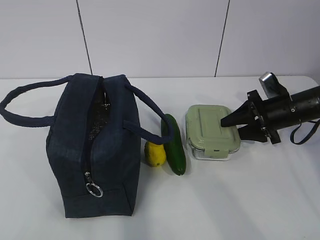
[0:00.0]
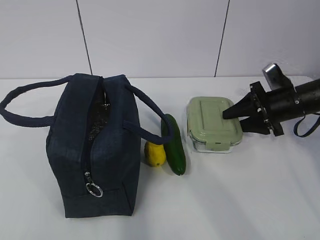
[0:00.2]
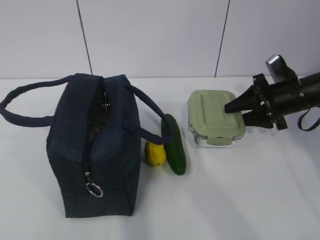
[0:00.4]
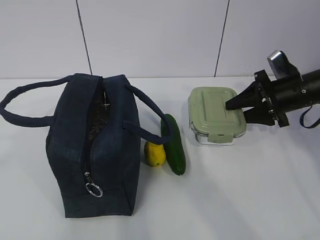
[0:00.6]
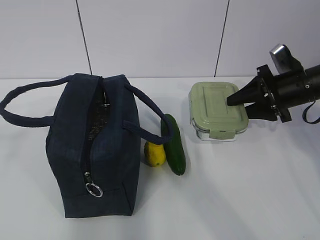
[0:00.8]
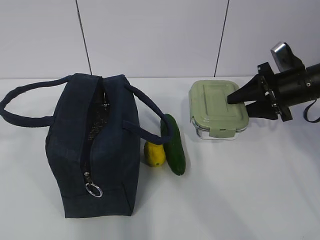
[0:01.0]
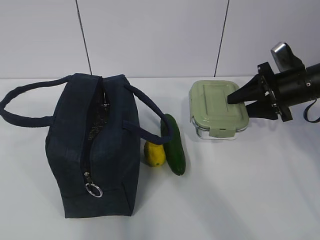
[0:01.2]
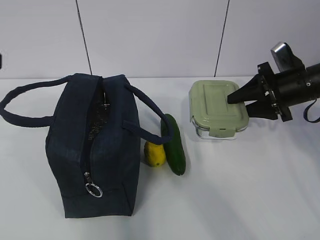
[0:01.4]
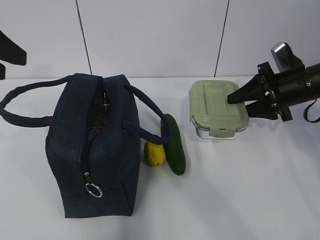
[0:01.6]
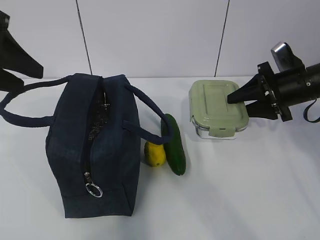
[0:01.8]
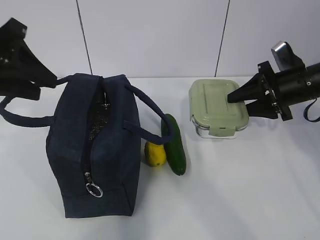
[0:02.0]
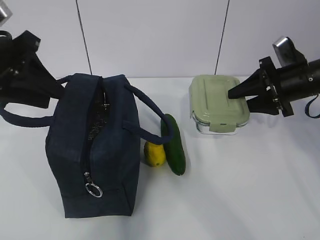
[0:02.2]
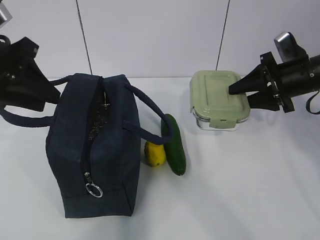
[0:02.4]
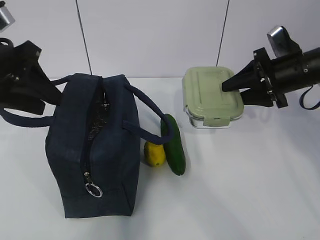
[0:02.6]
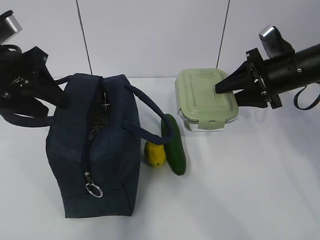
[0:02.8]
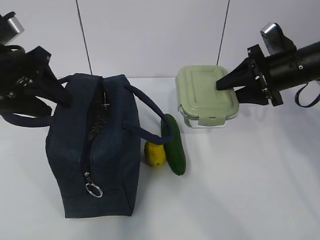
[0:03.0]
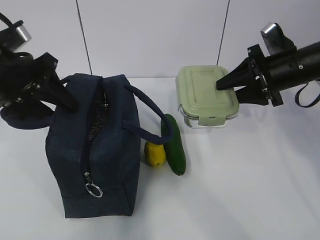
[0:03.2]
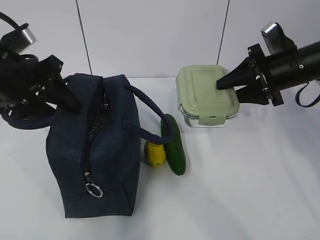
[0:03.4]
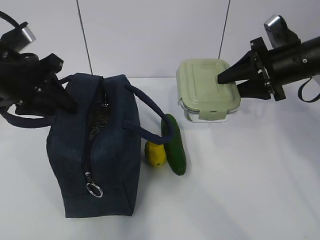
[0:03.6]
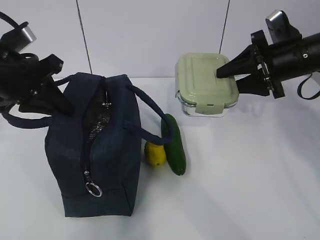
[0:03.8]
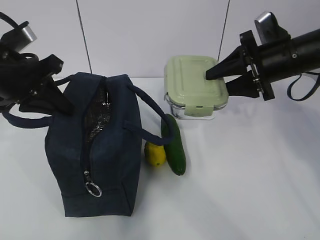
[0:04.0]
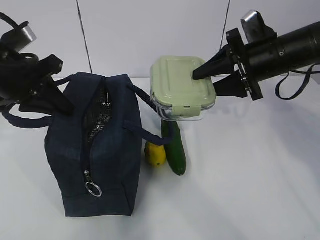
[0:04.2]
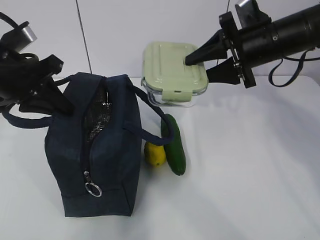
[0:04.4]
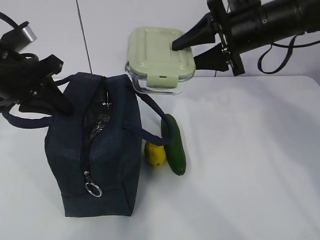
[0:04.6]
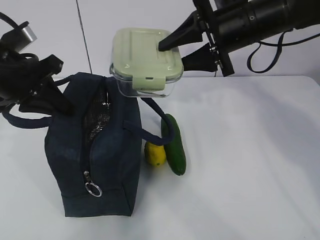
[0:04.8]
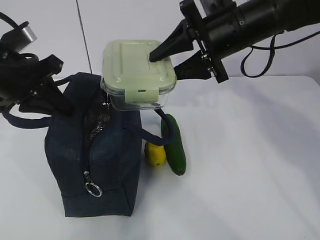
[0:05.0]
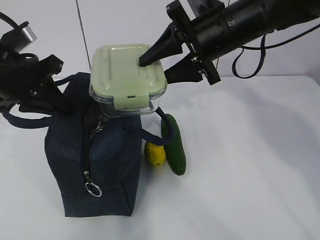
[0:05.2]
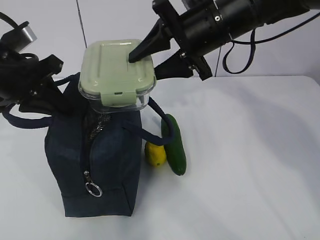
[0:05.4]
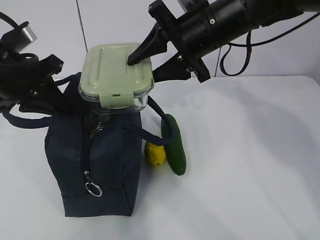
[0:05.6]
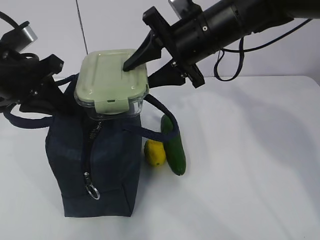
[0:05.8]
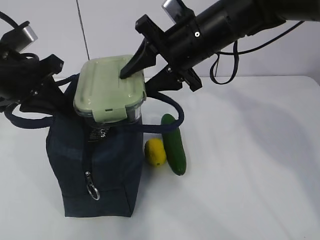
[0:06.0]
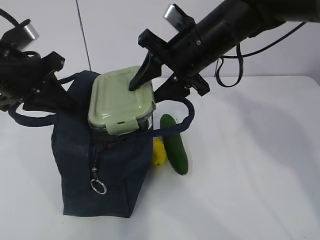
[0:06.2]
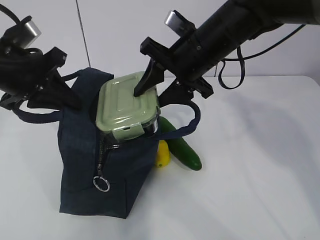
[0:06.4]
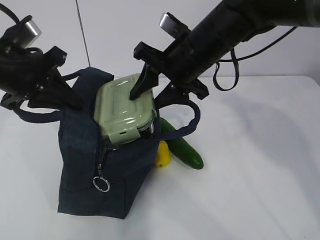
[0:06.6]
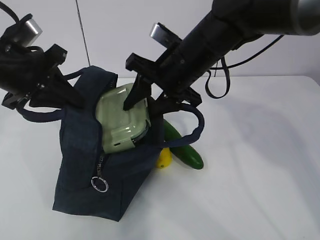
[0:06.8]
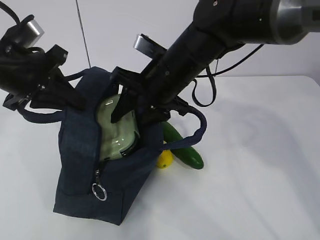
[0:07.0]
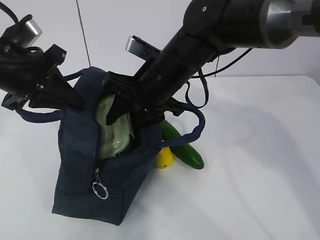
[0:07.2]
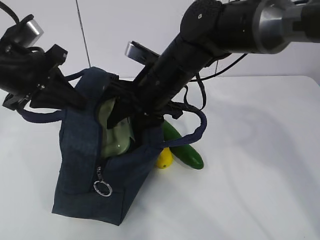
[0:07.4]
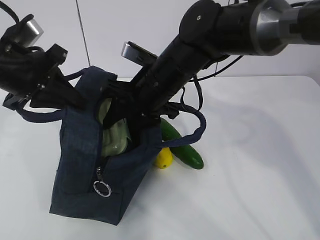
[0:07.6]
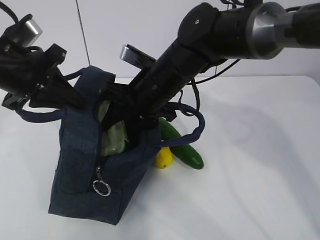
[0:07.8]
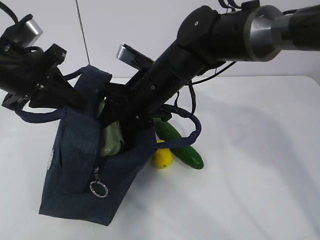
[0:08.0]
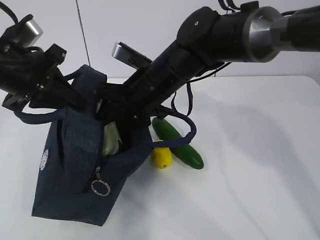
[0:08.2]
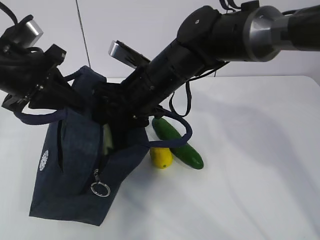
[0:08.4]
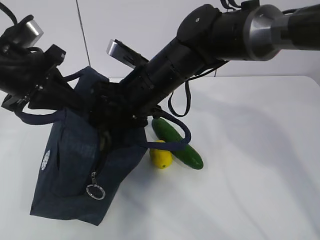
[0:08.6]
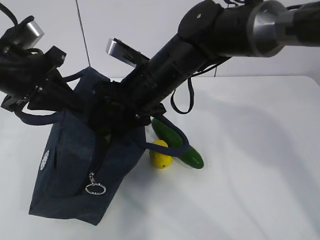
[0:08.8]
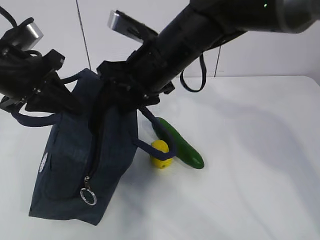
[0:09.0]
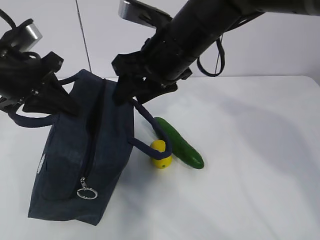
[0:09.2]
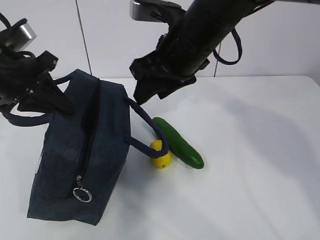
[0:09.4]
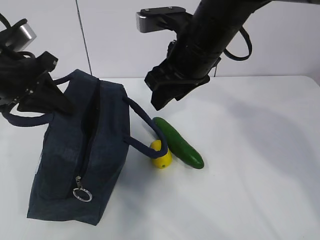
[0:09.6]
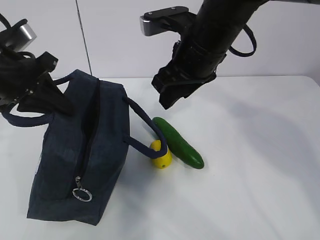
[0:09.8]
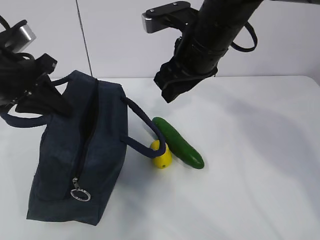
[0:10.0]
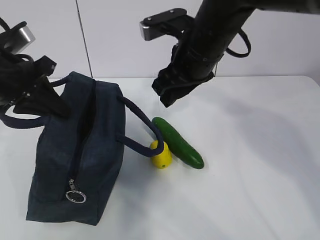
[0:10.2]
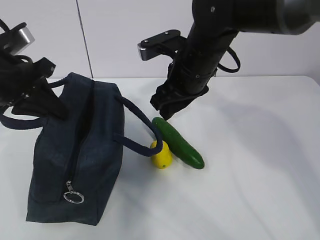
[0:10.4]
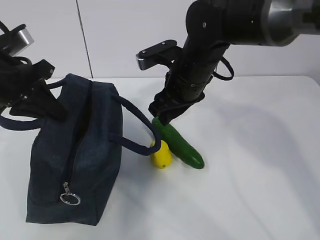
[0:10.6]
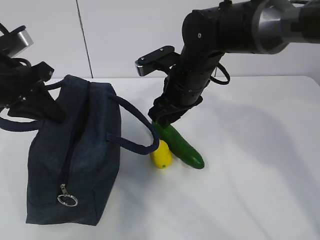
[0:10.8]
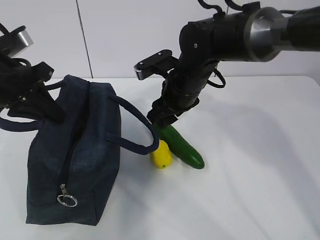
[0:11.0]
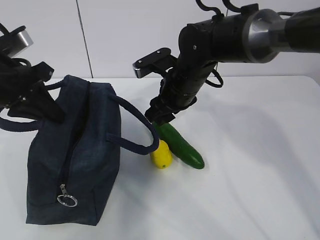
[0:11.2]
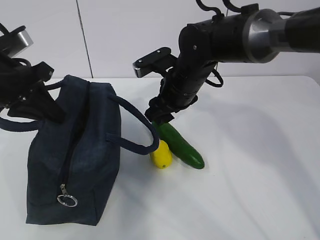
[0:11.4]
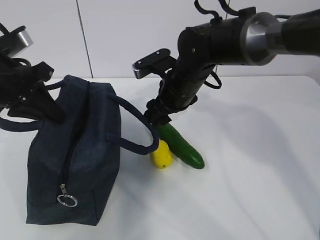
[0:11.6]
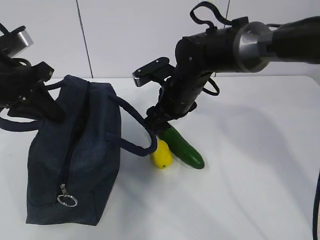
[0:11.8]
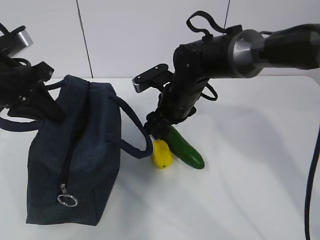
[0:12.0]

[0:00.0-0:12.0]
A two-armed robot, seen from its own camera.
Step, 0:01.8 to 0:04.0: Place it into the bag with your right hand.
Step, 0:04.2 to 0:08.6: Grab the cucumber with your right hand.
0:00.0 to 0:01.6: The right gripper moves upward, roughly 5 cm; the left gripper goes some 25 cm forward.
0:01.6 to 0:03.0: The left gripper goes about 5 cm downward.
0:03.0 to 0:04.4: The right gripper moves to the left and upward, roughly 10 cm. The left gripper closes up.
0:04.4 to 0:06.0: The right gripper goes approximately 10 cm to the left.
0:06.0 to 0:07.6: The right gripper shifts approximately 10 cm downward and to the left.
0:09.0 to 0:10.4: The right gripper moves about 5 cm.
0:10.4 to 0:12.0: The right gripper goes some 10 cm downward.

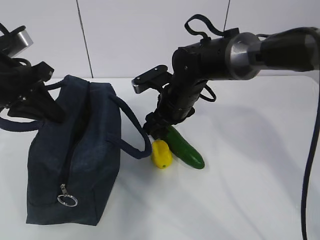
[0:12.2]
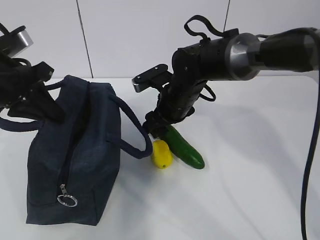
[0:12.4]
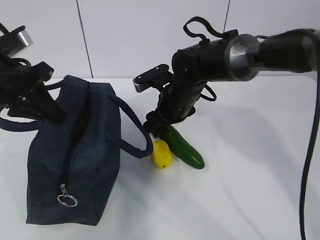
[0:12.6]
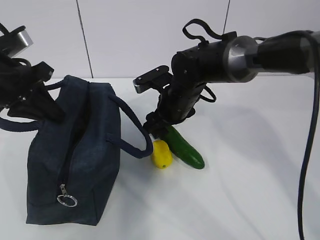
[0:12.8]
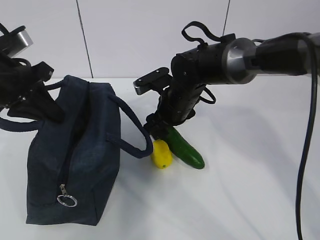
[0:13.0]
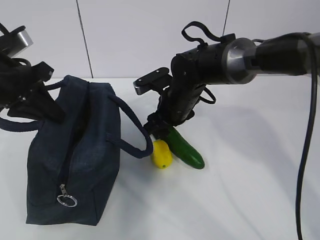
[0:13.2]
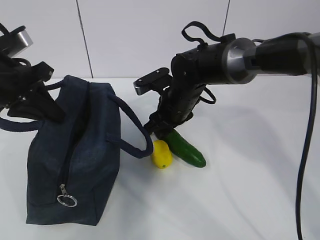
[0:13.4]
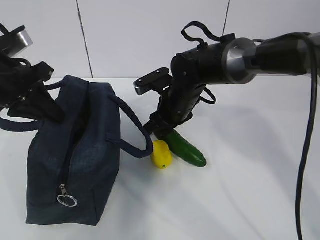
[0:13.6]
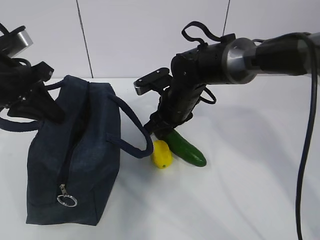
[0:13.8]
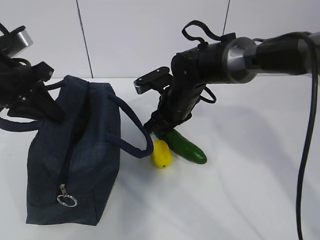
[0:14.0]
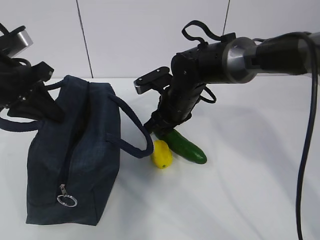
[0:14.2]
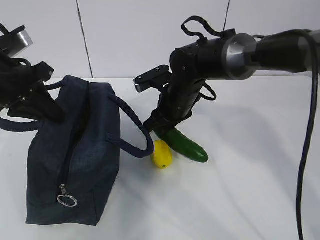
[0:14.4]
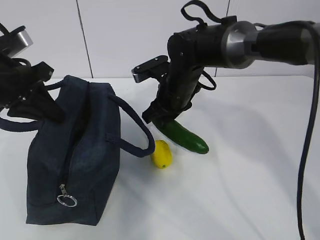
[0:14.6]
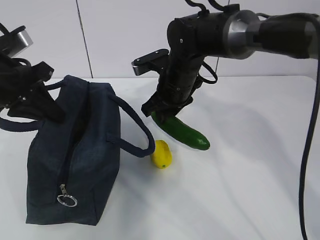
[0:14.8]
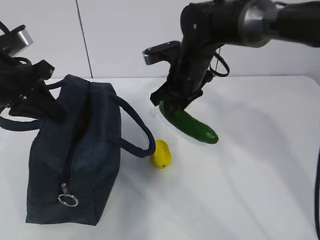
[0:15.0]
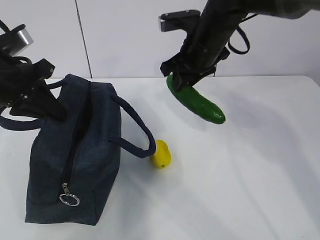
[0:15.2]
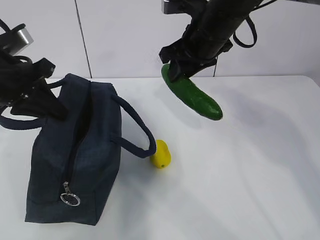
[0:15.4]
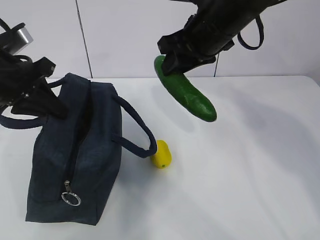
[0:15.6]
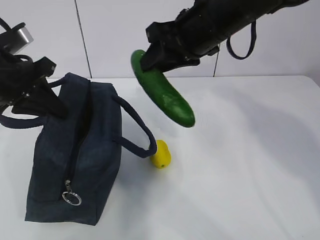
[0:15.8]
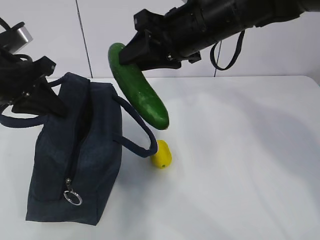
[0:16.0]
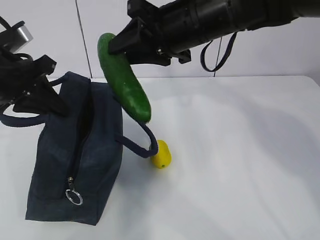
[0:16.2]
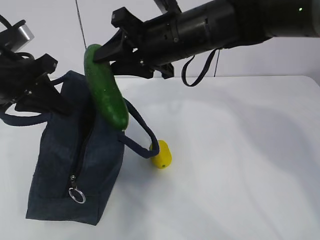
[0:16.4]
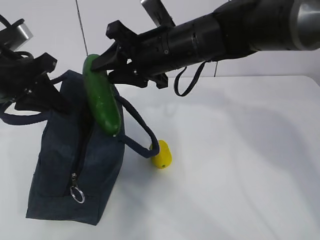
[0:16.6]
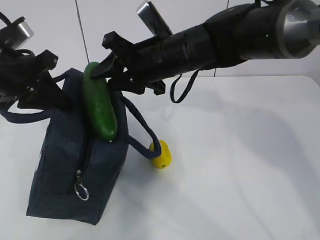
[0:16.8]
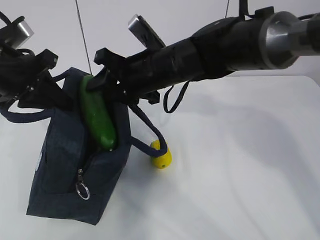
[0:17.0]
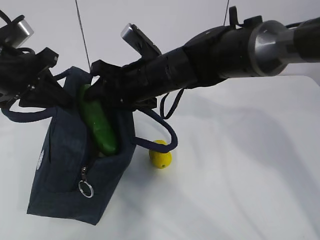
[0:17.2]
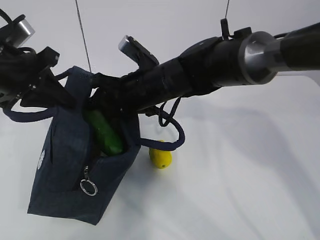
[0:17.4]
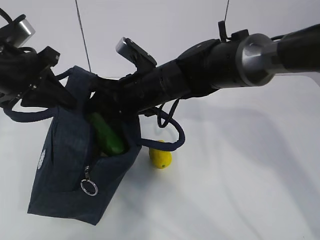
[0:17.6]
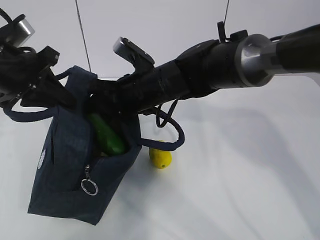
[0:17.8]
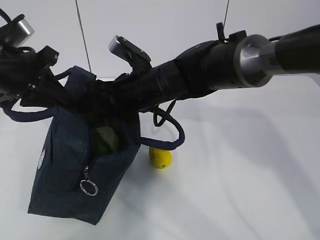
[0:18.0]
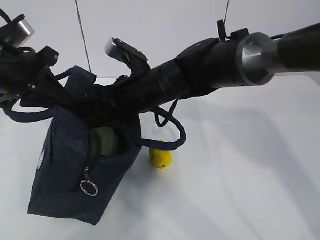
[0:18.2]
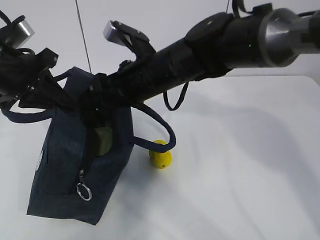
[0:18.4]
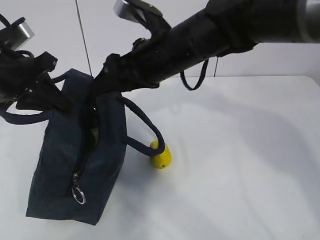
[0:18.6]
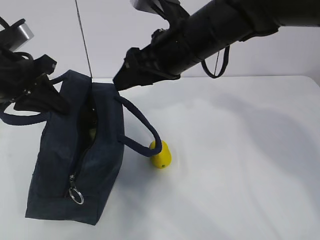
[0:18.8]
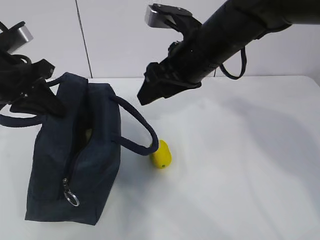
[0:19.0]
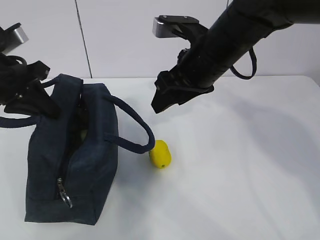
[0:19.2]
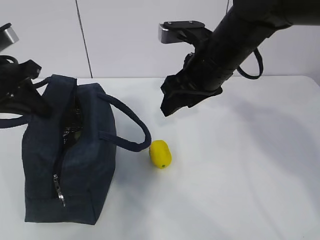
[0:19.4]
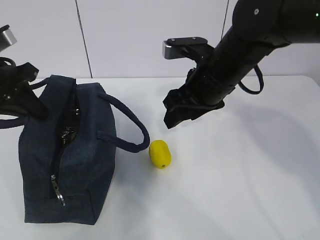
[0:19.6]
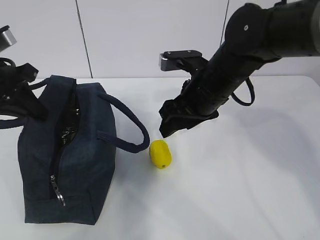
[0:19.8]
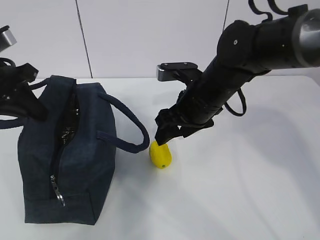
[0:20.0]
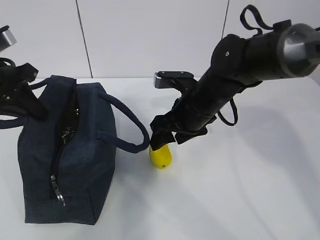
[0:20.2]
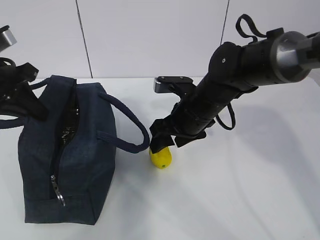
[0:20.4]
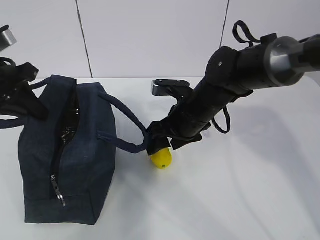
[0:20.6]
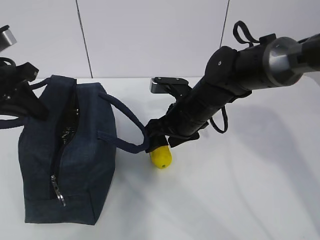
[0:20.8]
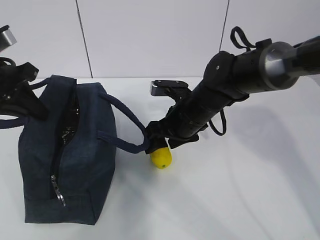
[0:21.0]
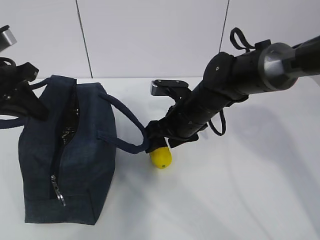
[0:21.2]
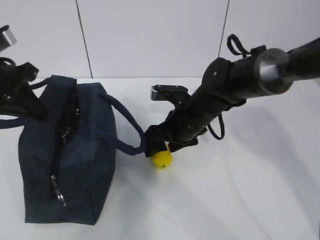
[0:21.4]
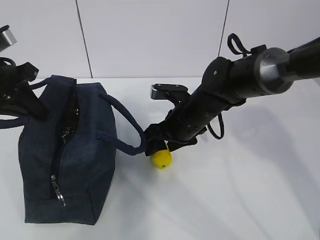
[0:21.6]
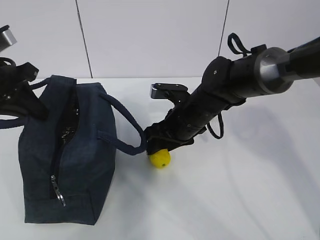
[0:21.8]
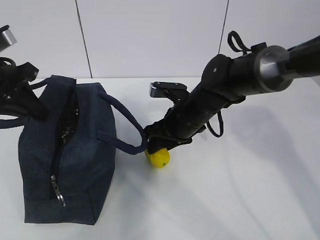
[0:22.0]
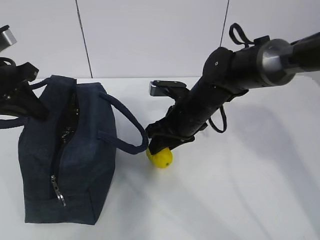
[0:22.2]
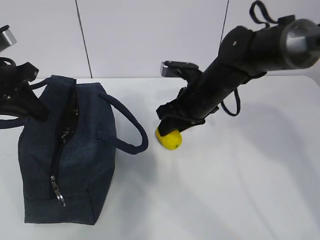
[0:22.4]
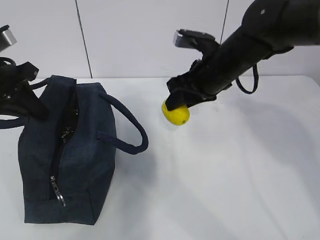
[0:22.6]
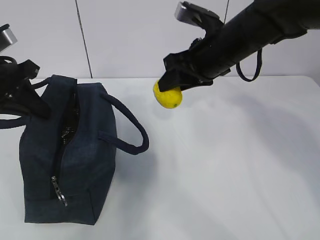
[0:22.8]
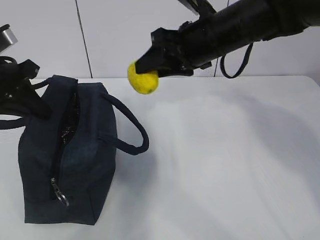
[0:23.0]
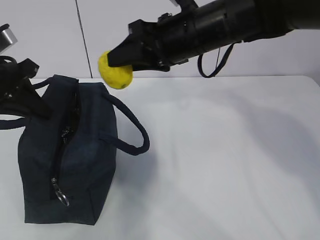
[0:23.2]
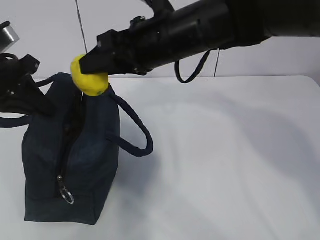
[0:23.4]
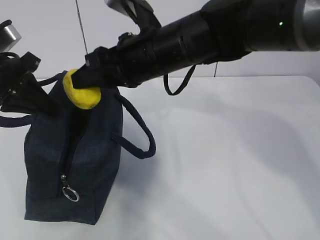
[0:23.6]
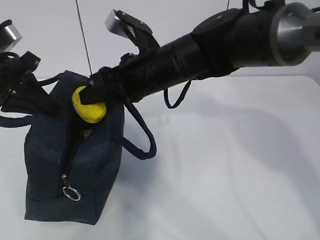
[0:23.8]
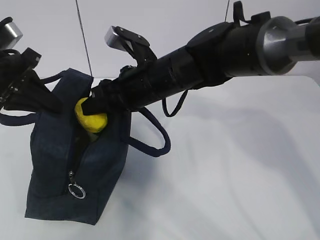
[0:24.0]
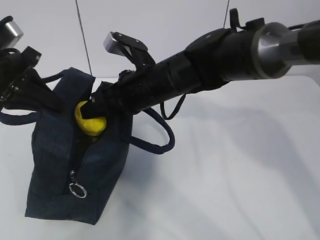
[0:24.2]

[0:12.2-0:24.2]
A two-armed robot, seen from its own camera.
Step, 0:12.2 to 0:15.2: Grab the lemon with your right hand.
Step, 0:17.4 to 0:19.6: Grab the lunch bag with your right hand.
Step, 0:19.8 to 0:23.0: Move the lunch bag to the right.
0:12.2 to 0:13.8: Both grippers stay put.
0:13.8 to 0:15.2: The right gripper goes approximately 10 cm upward.
0:15.2 to 0:16.6: The right gripper is displaced to the left and backward by roughly 10 cm.
0:16.6 to 0:18.2: The right gripper is displaced downward by approximately 5 cm.
0:18.2 to 0:19.8: The right gripper shifts approximately 10 cm to the right.
0:19.8 to 0:21.2: The right gripper goes approximately 10 cm downward.
0:21.2 to 0:22.6: The right gripper moves upward, approximately 10 cm, and closes.
0:22.6 to 0:24.2: The right gripper heads to the left, covering some 10 cm.
